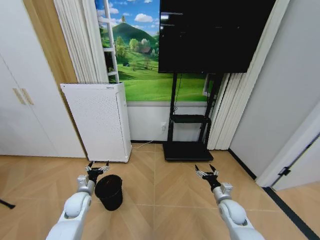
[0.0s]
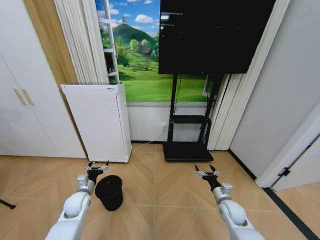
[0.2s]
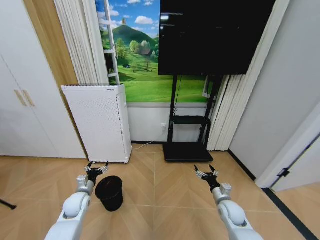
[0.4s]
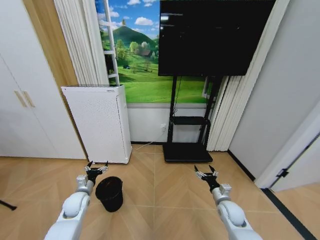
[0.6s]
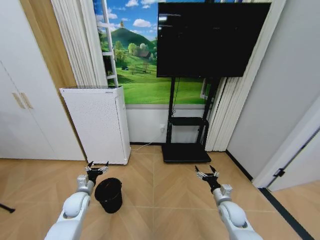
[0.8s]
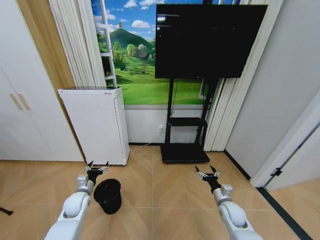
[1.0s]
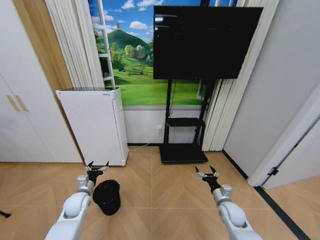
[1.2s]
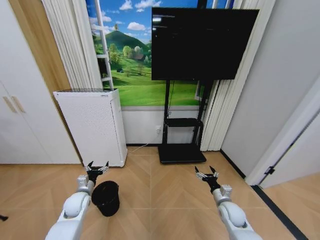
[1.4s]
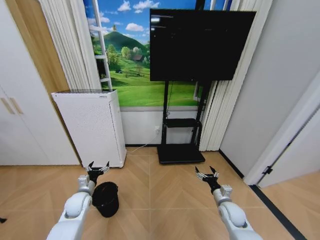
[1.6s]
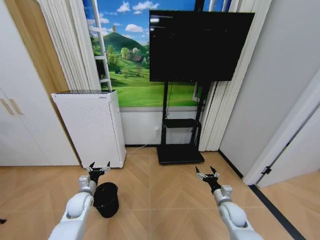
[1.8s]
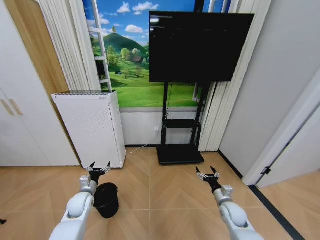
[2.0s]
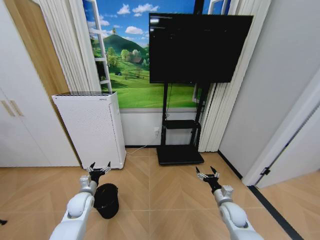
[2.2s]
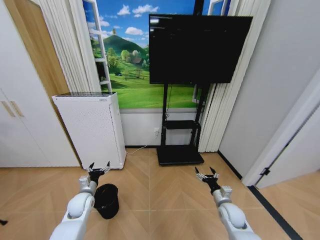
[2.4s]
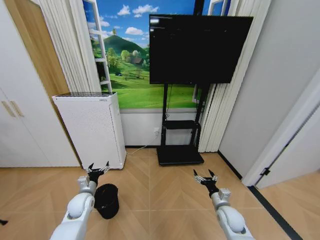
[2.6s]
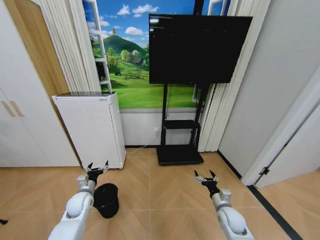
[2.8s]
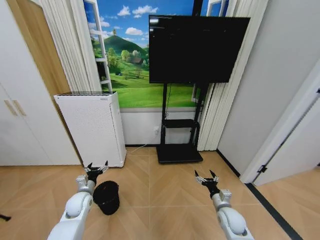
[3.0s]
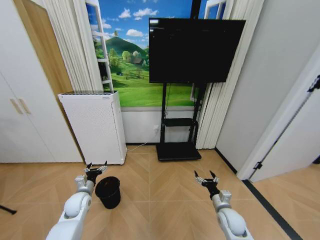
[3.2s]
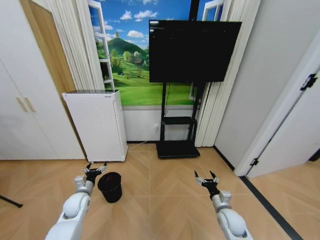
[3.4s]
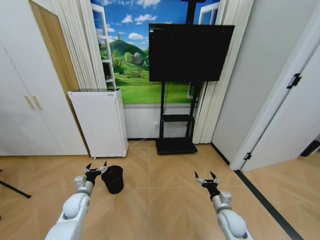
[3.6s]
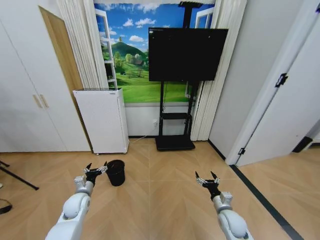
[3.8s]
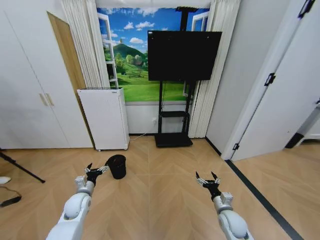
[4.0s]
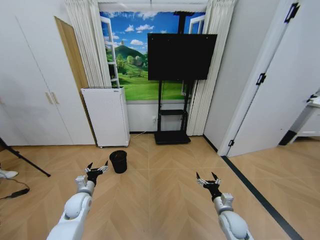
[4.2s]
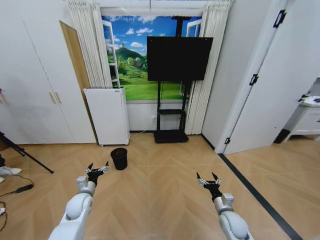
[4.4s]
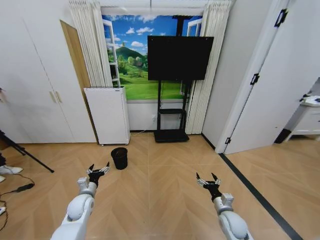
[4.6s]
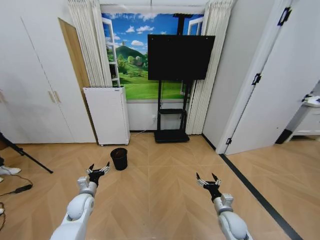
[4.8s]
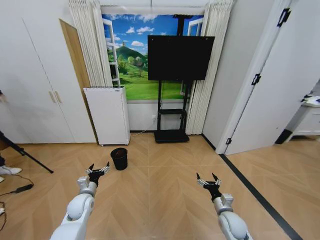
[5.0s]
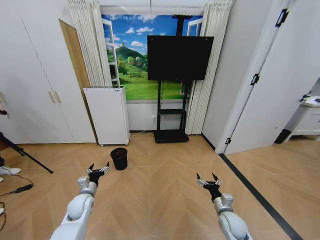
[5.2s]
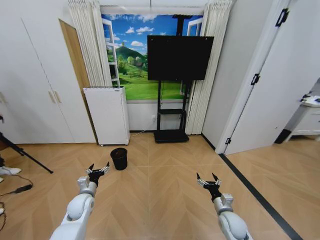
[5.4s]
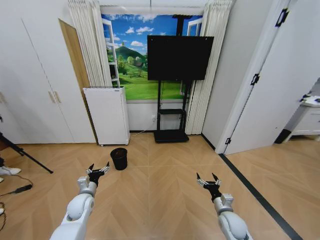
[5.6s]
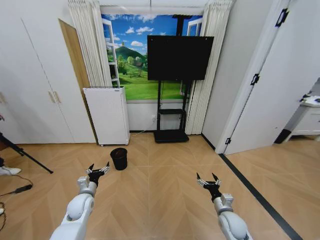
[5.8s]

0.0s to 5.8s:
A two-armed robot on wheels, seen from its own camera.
Task of the whole recording: Pick up the trash bin and place the garbage on the floor into it.
1.4s to 2.8s: There are only small adjustments of the grippers.
4.4s to 5.8s: Both grippers stay put.
